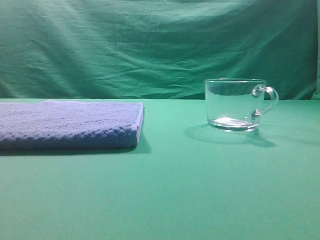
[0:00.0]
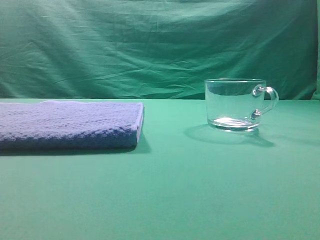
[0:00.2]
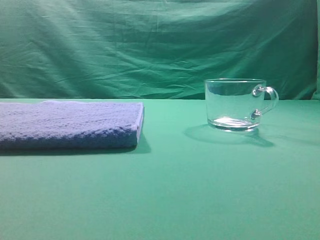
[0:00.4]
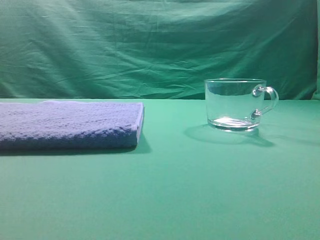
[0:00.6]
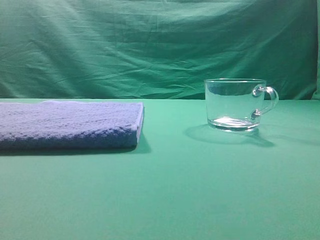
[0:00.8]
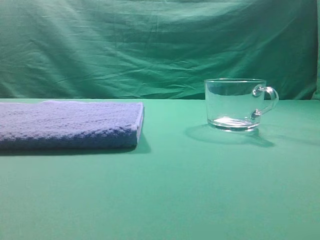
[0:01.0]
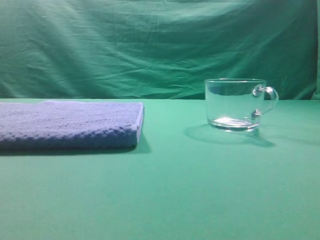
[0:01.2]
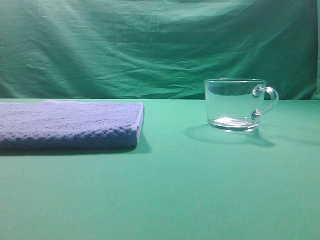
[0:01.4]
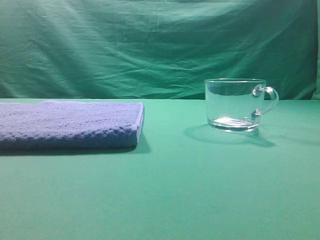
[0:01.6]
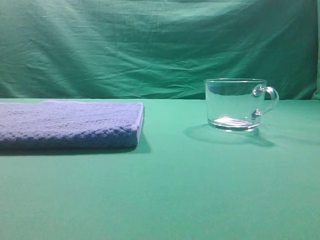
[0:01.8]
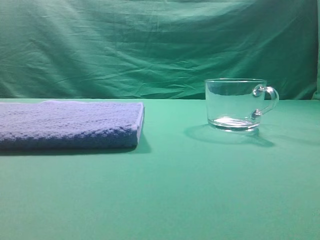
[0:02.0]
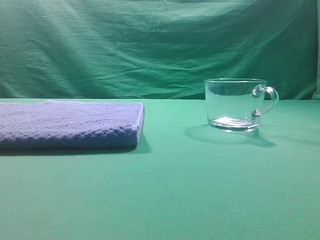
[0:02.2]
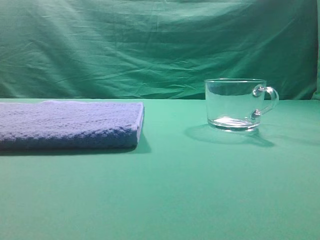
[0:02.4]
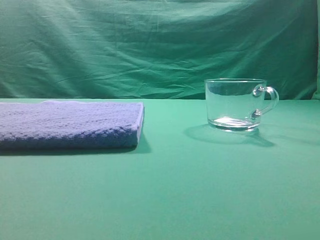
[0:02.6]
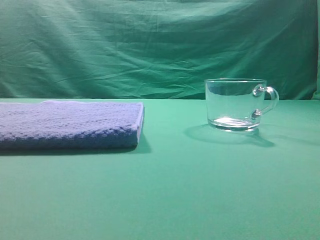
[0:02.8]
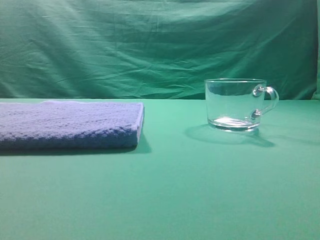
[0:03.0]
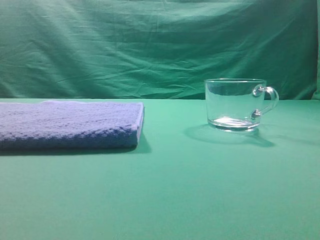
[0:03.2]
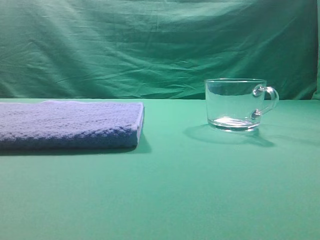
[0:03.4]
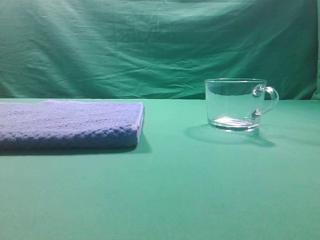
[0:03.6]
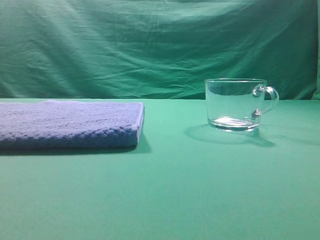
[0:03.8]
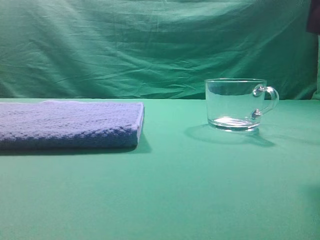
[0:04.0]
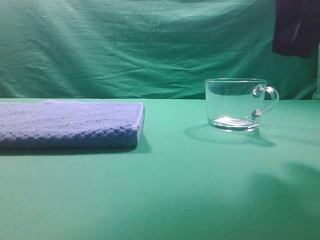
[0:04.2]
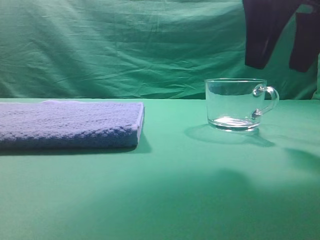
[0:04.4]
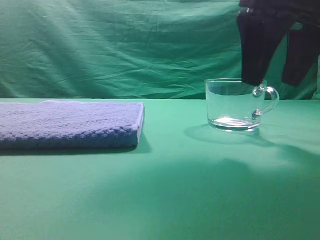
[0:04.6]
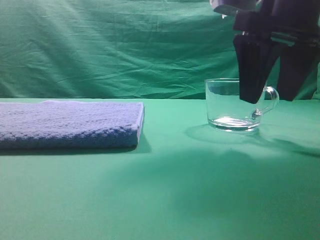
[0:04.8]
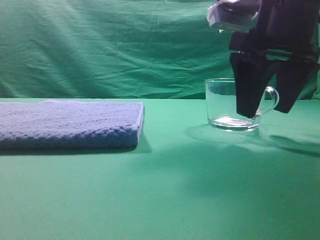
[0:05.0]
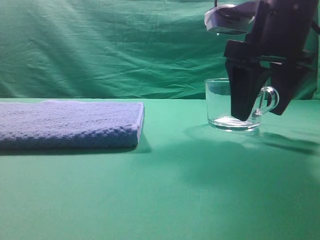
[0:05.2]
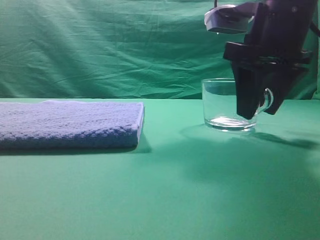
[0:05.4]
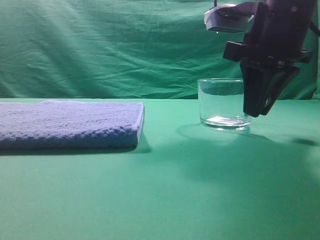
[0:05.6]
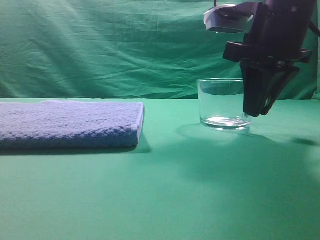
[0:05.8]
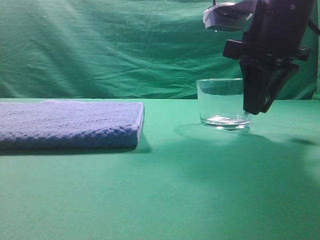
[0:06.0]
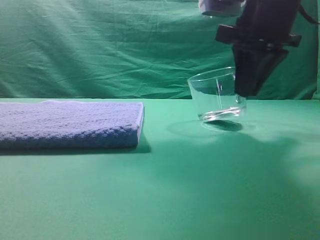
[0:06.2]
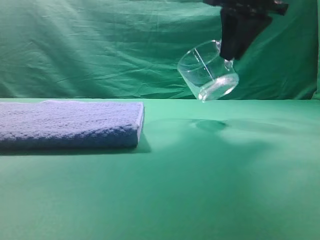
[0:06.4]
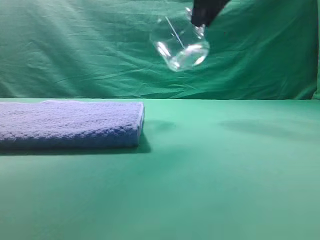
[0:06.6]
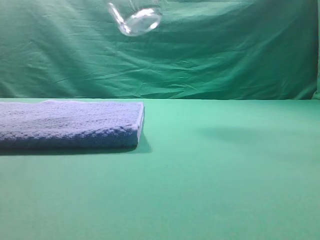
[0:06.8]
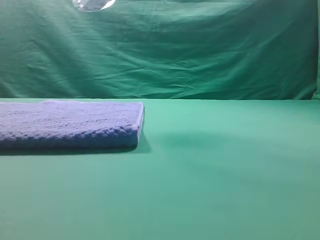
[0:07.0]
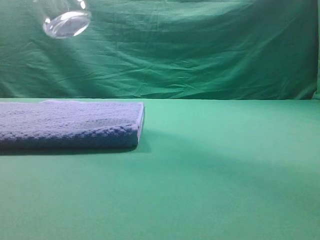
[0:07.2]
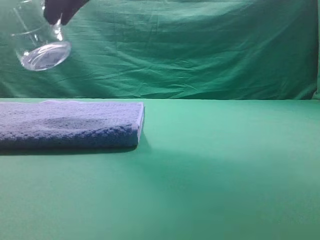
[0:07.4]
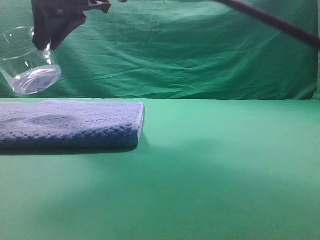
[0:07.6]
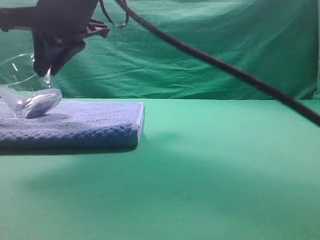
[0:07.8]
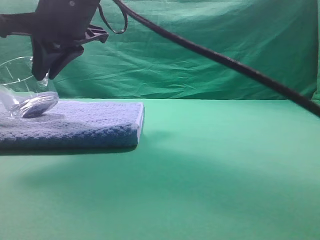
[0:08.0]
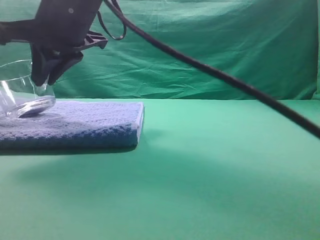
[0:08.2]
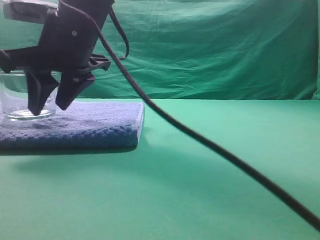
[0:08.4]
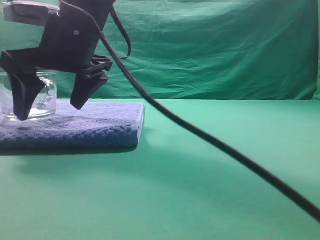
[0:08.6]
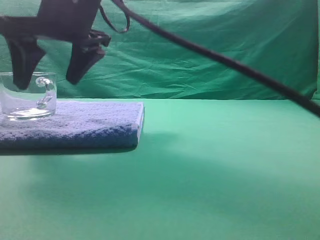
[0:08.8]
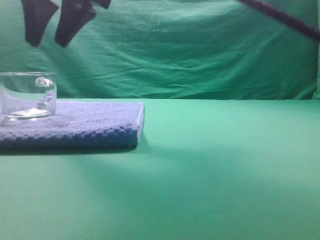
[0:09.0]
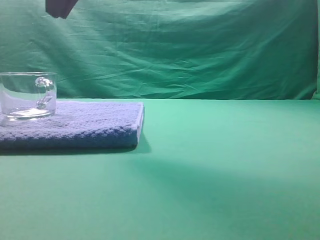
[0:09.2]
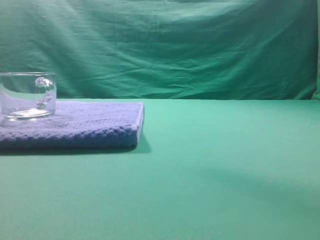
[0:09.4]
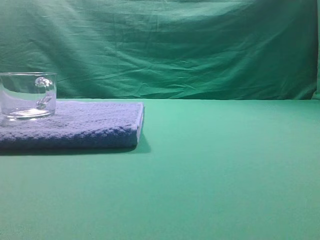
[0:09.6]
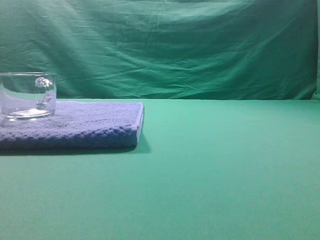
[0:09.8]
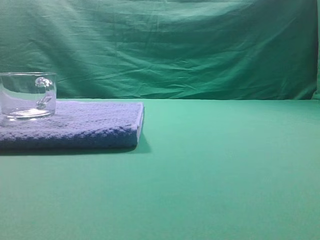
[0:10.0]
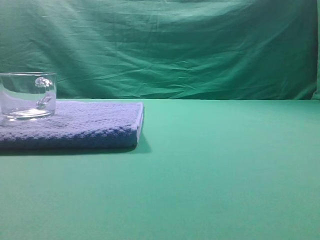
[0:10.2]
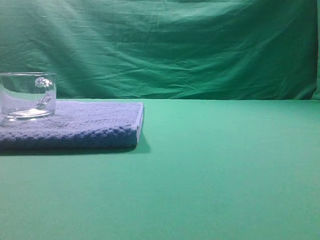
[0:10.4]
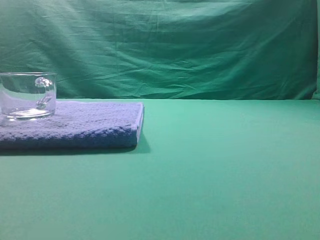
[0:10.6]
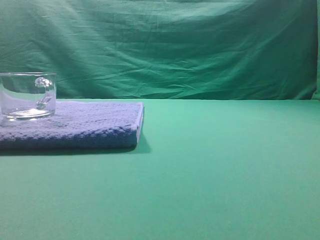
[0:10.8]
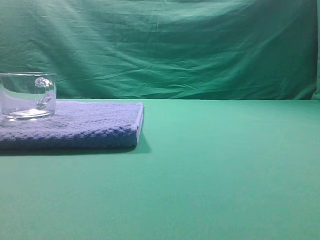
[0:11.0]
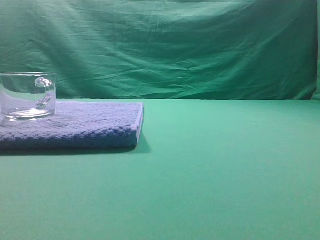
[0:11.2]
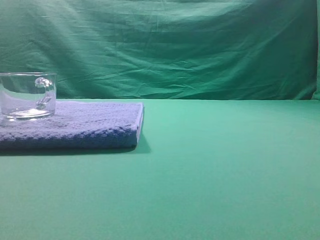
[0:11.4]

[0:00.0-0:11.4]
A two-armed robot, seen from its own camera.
Task of the whole recording: grasp the transparent glass cup and place it within the blue towel.
Step, 0:00.0 to 0:06.2: Grasp the transparent glass cup.
Step, 0:06.6 to 0:08.8: Place the glass cup on the blue zone.
